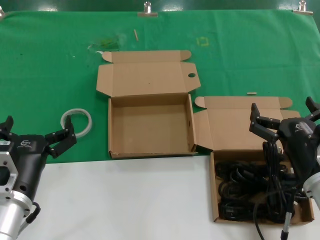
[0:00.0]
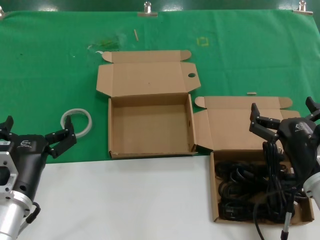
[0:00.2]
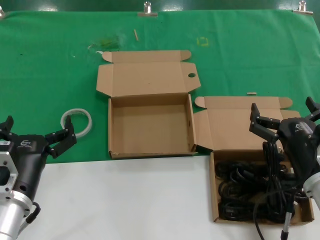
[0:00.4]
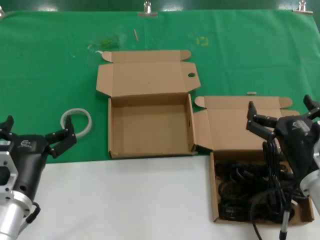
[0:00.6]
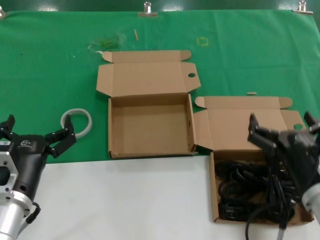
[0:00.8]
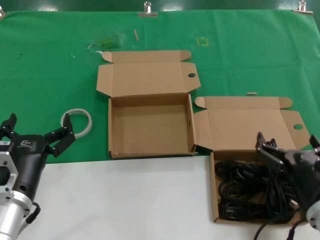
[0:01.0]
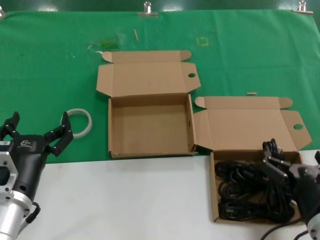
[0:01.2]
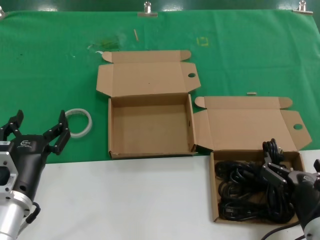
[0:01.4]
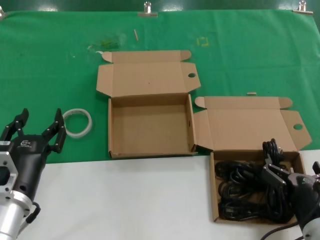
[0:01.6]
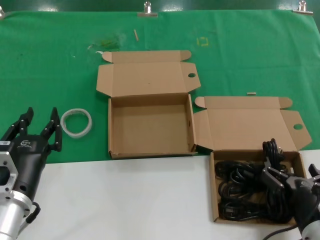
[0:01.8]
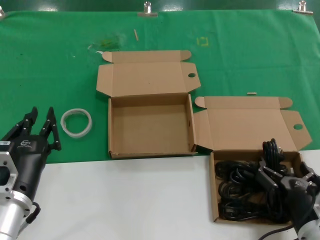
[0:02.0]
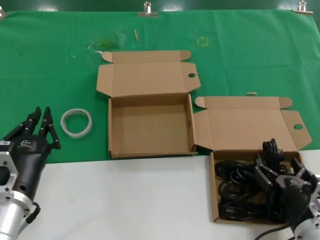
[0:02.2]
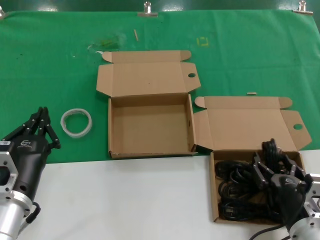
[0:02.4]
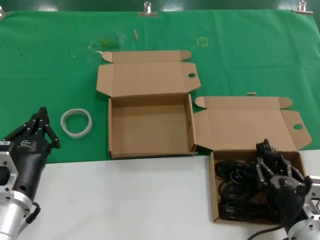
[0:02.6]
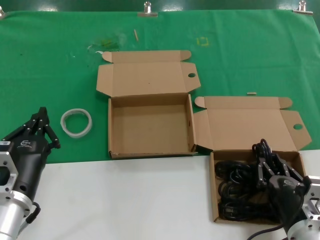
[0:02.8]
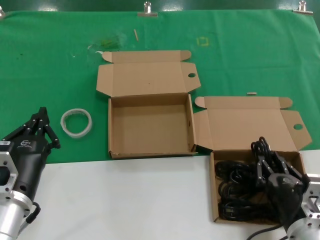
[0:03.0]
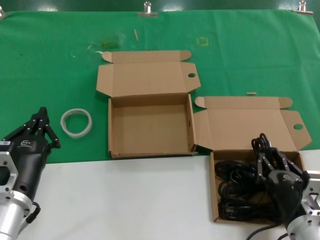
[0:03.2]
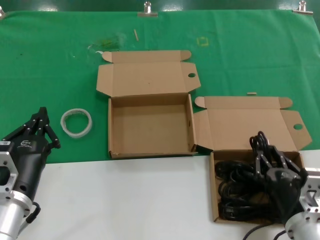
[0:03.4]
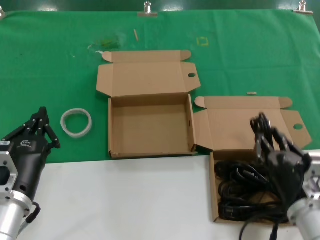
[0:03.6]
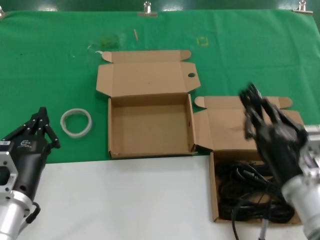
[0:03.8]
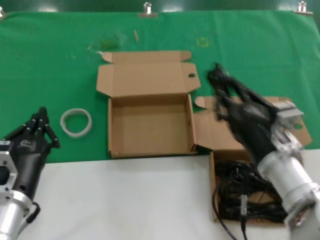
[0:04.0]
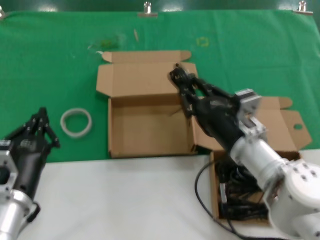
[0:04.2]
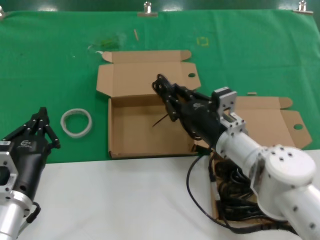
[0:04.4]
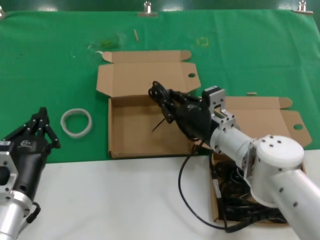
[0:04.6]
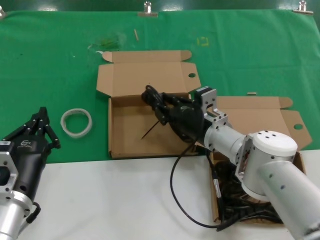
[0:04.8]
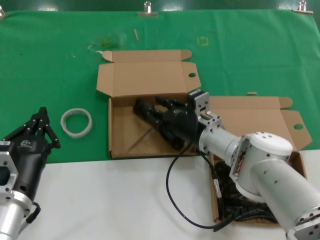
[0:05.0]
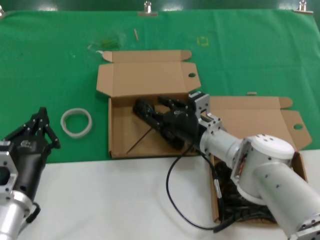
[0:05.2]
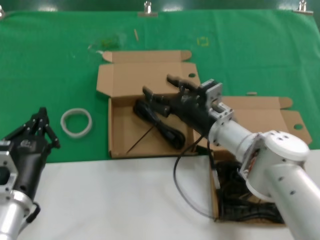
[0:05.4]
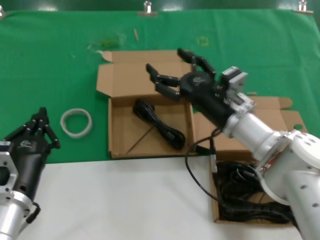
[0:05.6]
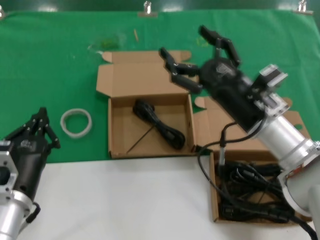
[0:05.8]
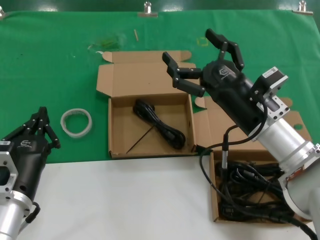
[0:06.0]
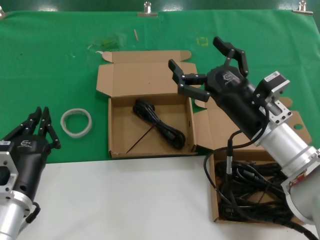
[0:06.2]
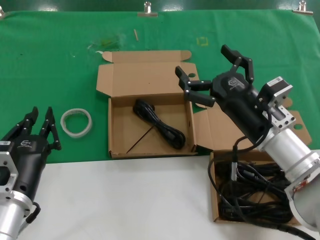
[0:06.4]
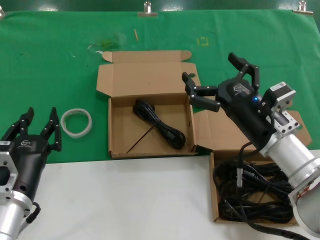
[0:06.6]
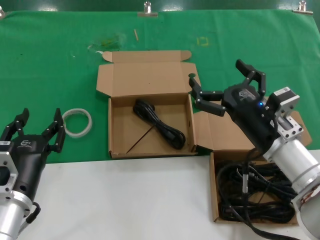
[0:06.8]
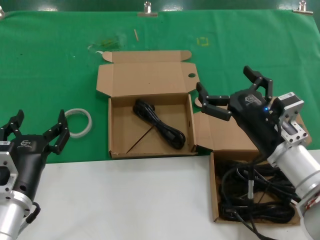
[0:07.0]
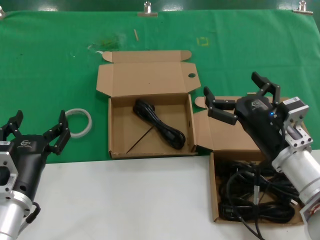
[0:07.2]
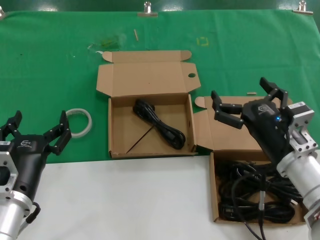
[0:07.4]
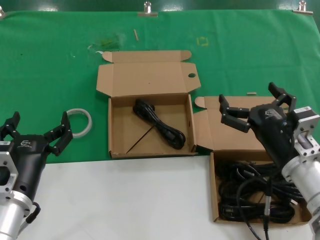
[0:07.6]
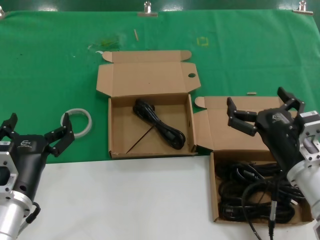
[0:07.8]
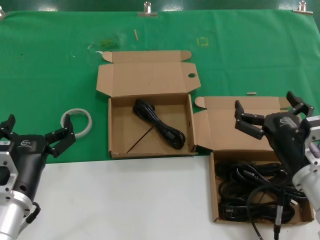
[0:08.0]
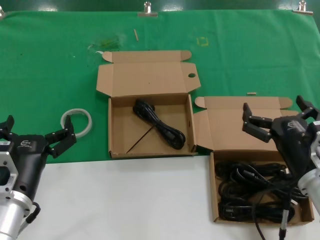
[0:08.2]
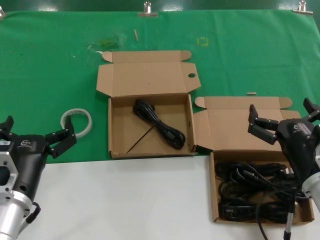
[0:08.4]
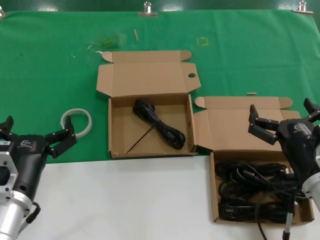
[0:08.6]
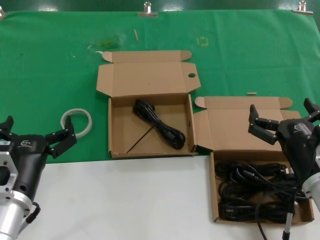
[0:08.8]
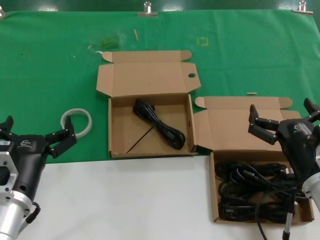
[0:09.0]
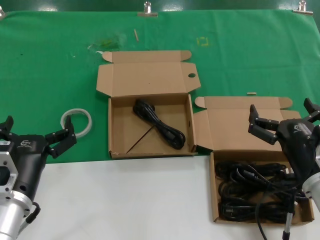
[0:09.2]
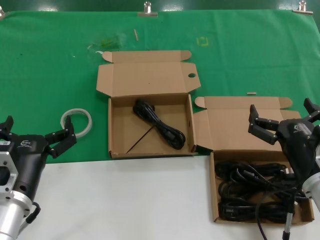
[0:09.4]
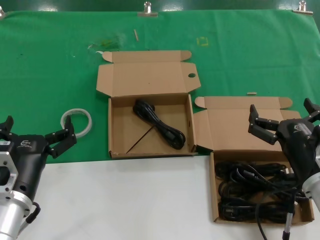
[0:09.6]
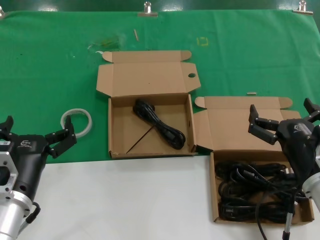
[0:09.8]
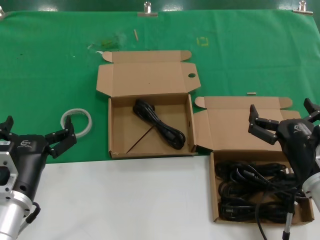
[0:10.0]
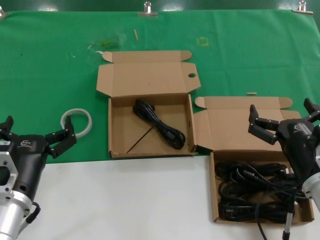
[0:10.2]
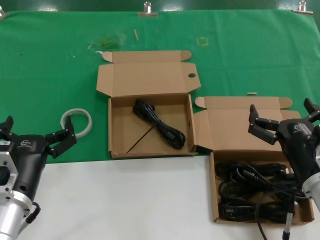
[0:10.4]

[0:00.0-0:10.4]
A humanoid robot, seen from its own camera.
Task of the whole recording: Pick up the power cord from the box containing it and place it in another box.
Step, 0:00.0 to 0:03.0: Grasp the data cable.
Step, 0:03.4 to 0:05.0: Place the data cable in the another box.
0:00.0 to 0:01.4: The right hand goes some 5 cm downward.
0:01.4 to 0:03.0: There are only small adjustments of the hands.
0:03.0 to 0:04.4: The right hand is displaced forward, upward and to the left by some 20 cm.
0:04.4 to 0:06.0: The right hand goes forward and returns, about 5 cm each way.
0:06.0 to 0:07.4: The right hand travels backward by some 5 cm.
0:07.4 to 0:09.0: The right hand ends up approximately 5 cm from where it was.
0:09.0 to 0:10.4: Both hands stay about where they are.

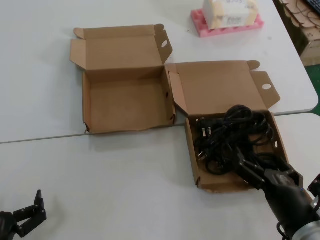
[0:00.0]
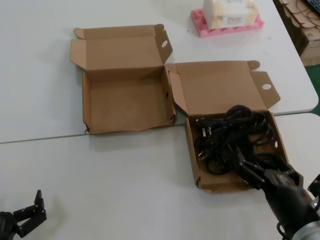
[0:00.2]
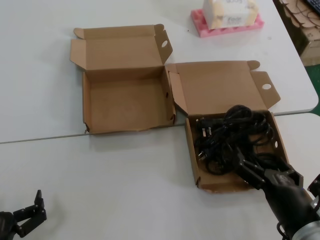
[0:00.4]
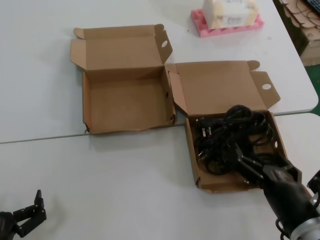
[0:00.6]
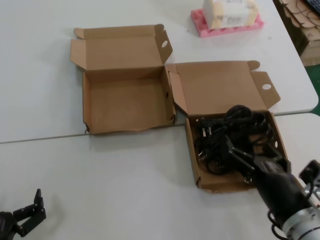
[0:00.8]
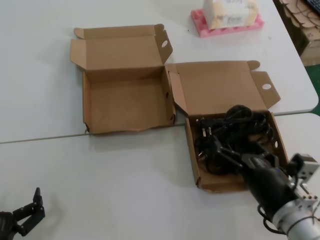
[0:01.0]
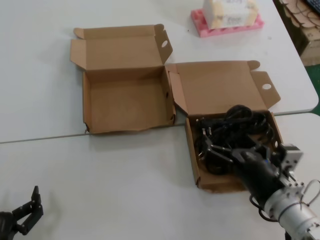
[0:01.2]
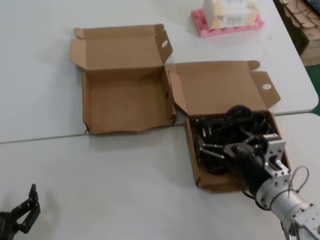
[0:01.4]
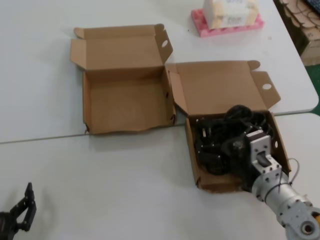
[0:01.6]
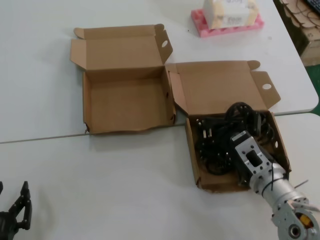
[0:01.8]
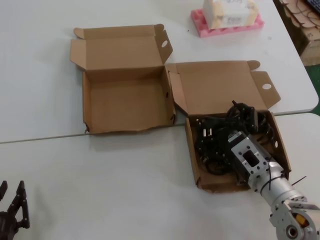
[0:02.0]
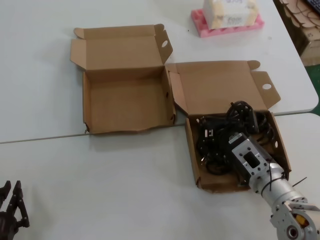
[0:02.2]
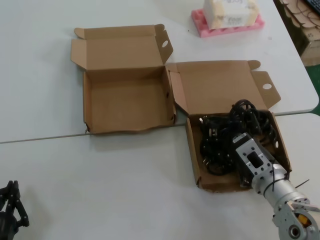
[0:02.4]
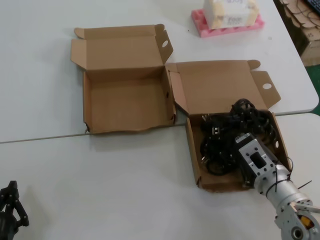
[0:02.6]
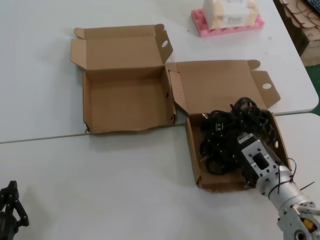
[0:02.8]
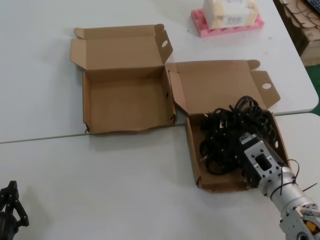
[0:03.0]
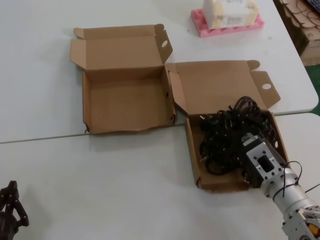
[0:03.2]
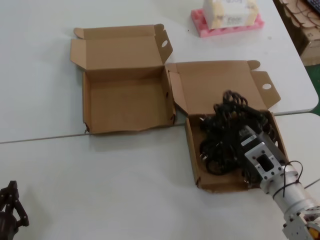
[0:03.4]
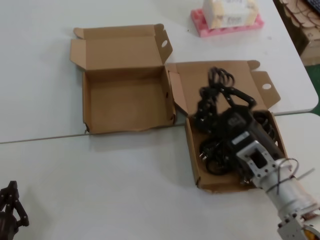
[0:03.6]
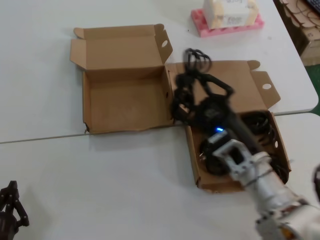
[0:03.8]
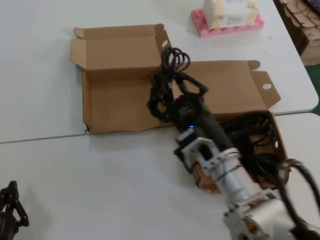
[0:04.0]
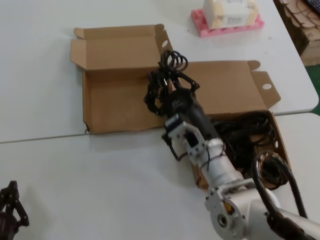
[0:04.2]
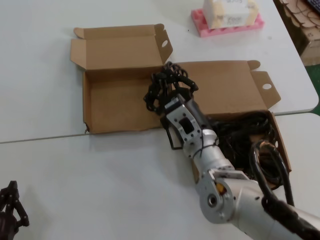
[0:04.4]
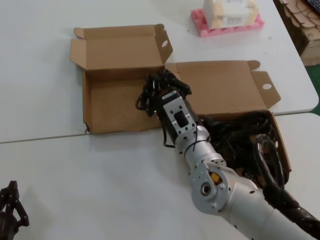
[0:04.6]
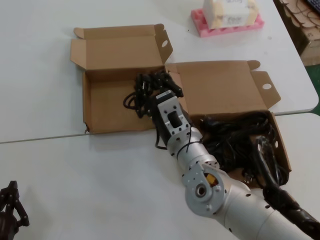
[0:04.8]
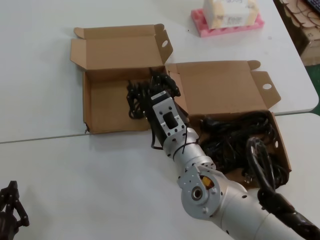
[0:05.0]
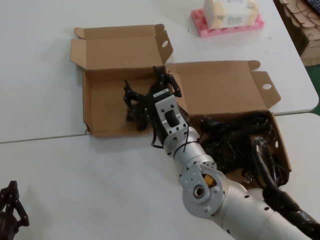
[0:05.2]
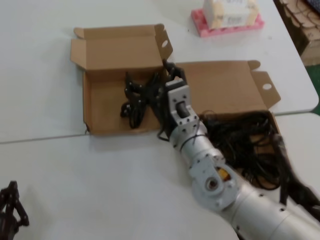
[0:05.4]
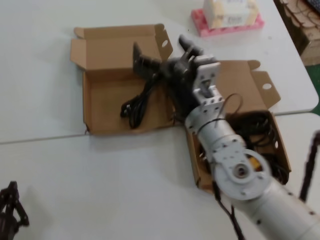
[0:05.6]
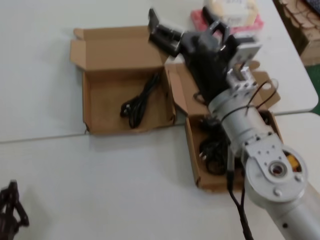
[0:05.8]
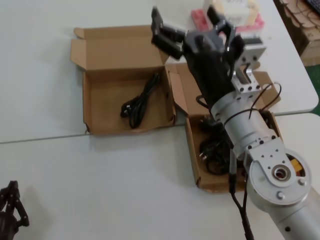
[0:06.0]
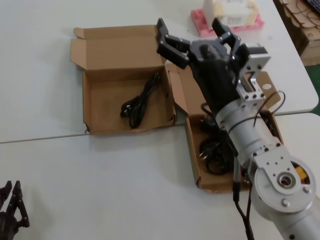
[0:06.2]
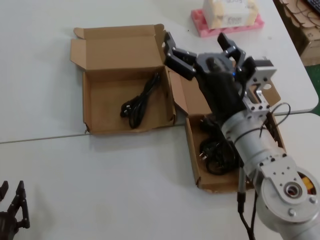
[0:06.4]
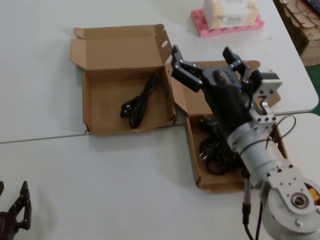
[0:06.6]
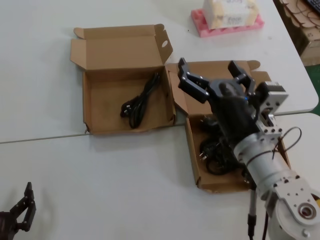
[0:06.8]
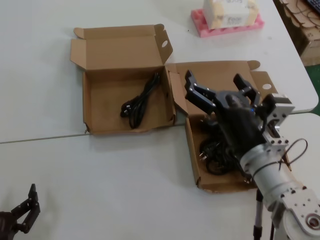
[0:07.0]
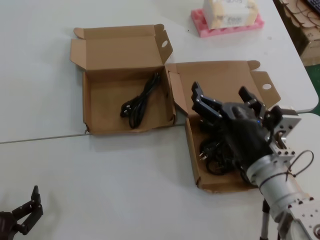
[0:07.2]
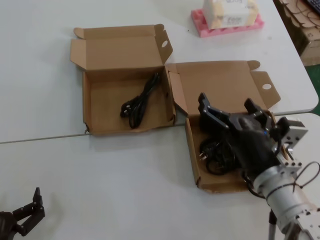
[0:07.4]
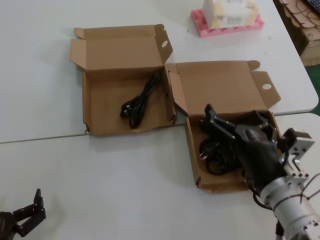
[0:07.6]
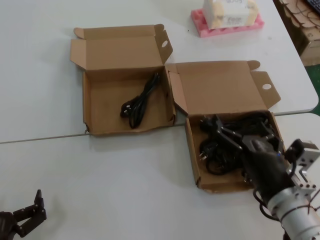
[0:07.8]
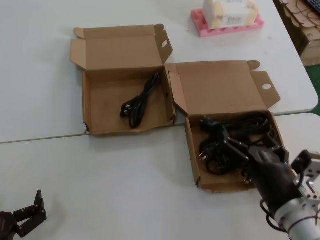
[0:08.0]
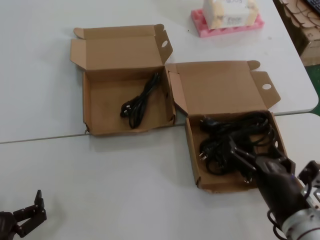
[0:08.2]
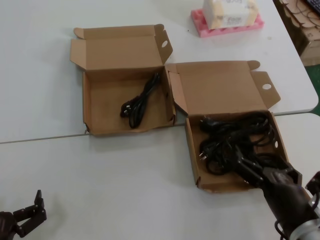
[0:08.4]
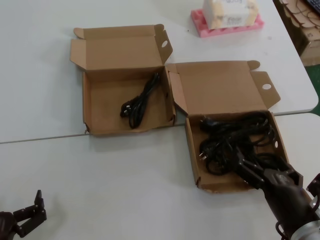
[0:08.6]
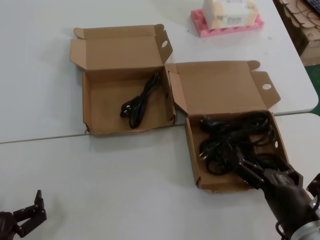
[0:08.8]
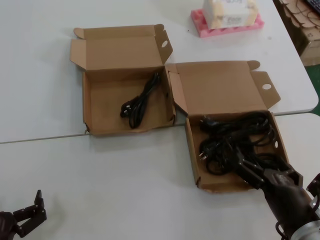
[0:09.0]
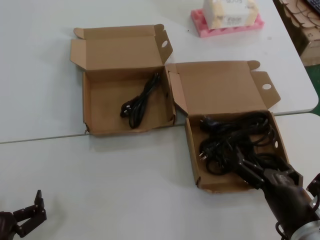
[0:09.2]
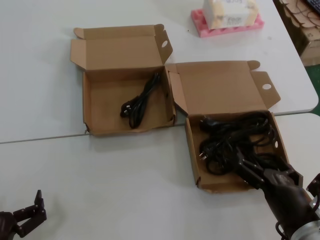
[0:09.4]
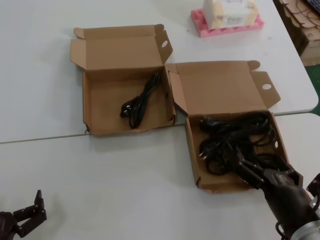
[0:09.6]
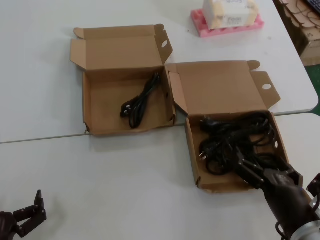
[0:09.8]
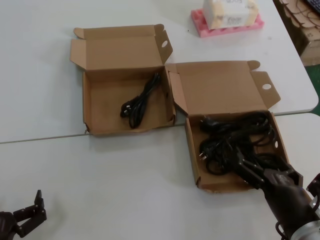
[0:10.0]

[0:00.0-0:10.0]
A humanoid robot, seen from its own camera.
Task of the whole recording: Pick up the power cord from the box containing it and place it in another box.
Step, 0:00.0 to 0:03.2: Grasp the data cable.
Step, 0:03.6 to 0:05.4: Place the data cable in the another box.
0:00.0 to 0:01.4: The right hand is displaced forward by about 10 cm.
0:02.8 to 0:04.2: The right hand goes approximately 10 cm to the left.
0:04.2 to 0:05.8: The right hand heads upward, covering some 10 cm.
0:05.8 to 0:07.2: The right hand travels downward, to the right and backward by roughly 10 cm.
0:07.2 to 0:08.6: The right hand heads downward, backward and to the right, covering about 15 cm.
0:08.6 to 0:10.0: Neither hand changes place.
